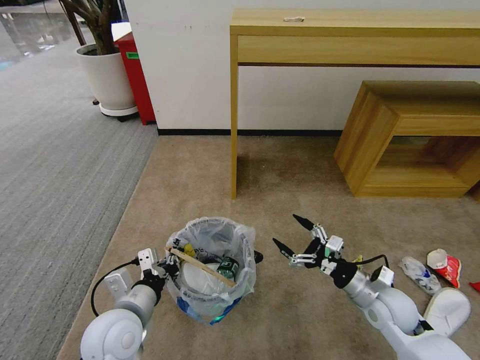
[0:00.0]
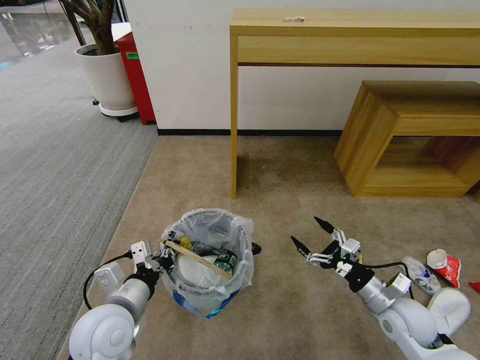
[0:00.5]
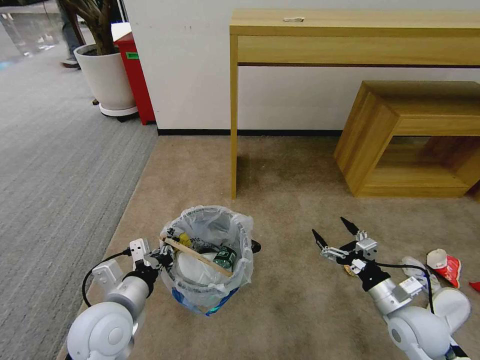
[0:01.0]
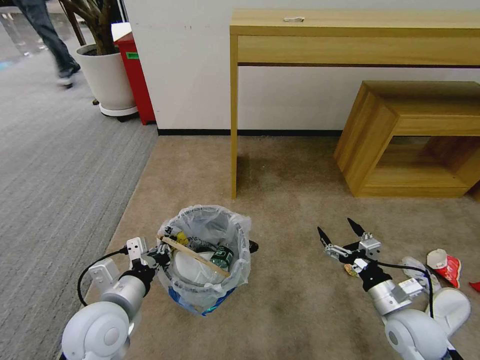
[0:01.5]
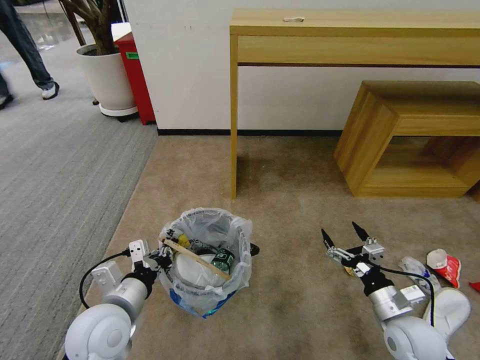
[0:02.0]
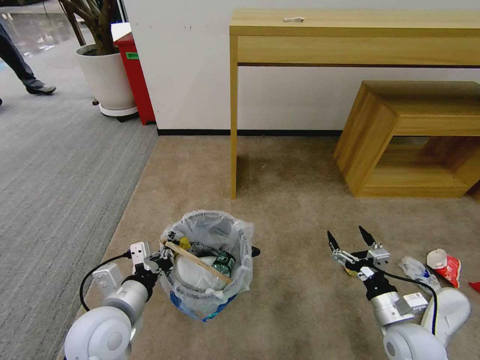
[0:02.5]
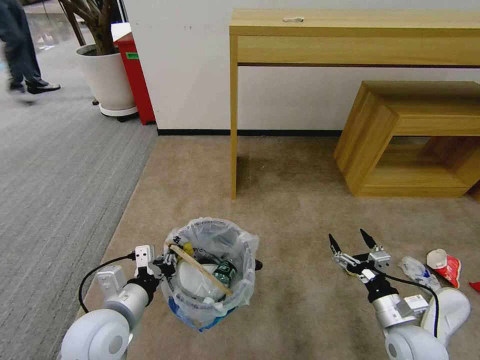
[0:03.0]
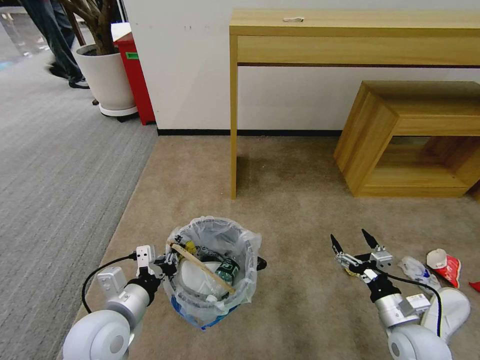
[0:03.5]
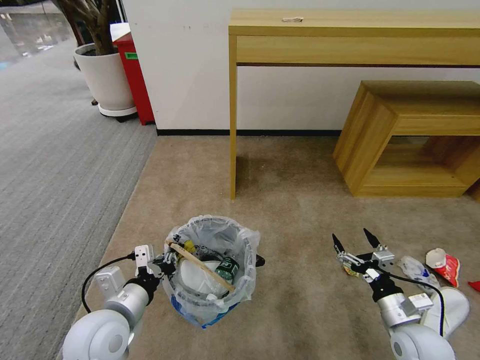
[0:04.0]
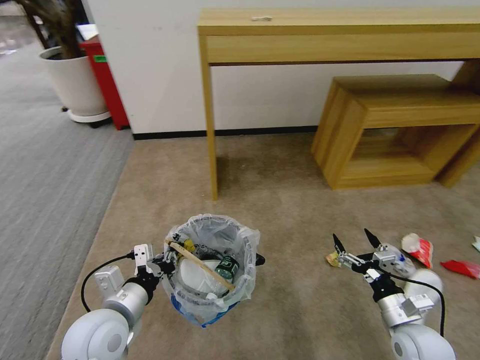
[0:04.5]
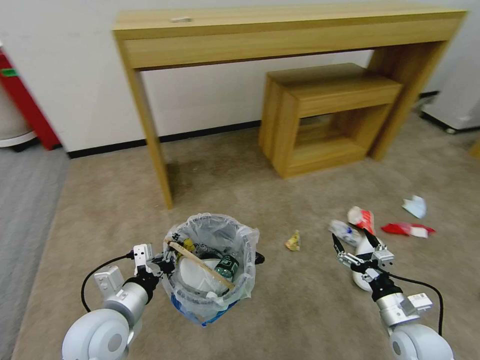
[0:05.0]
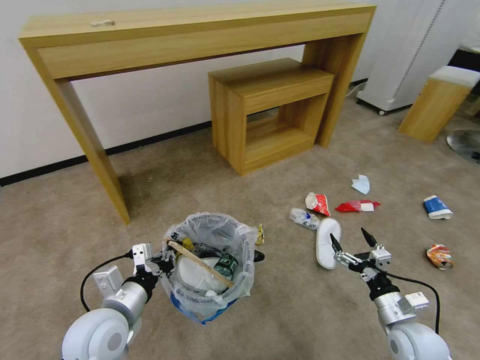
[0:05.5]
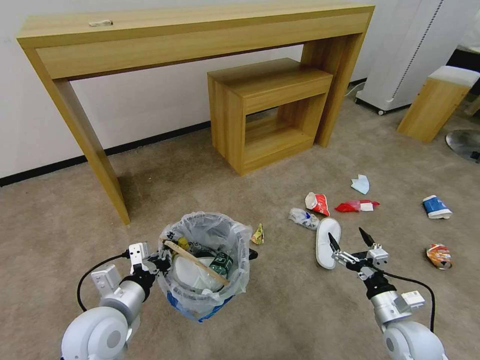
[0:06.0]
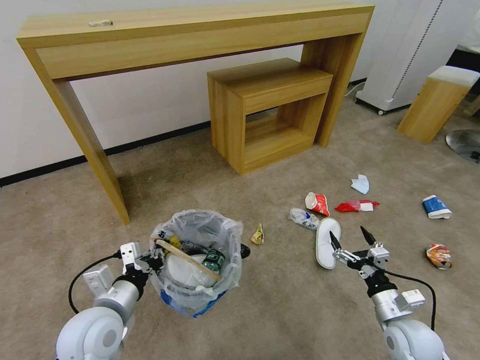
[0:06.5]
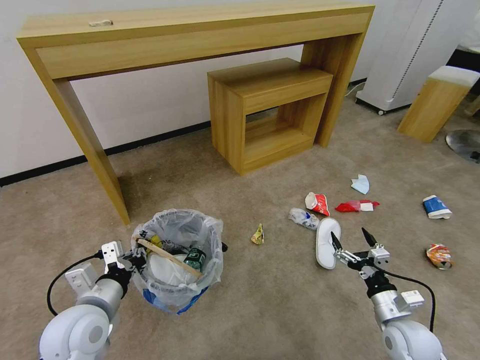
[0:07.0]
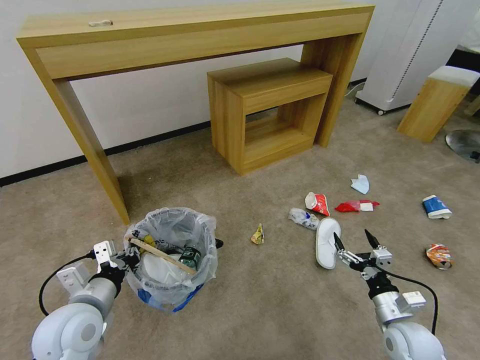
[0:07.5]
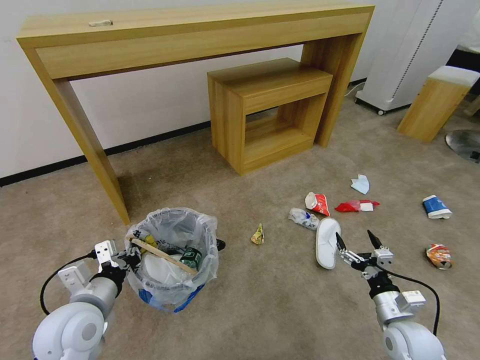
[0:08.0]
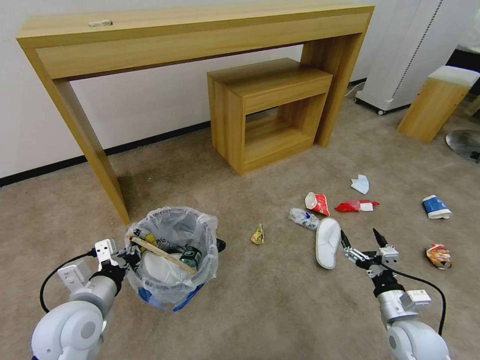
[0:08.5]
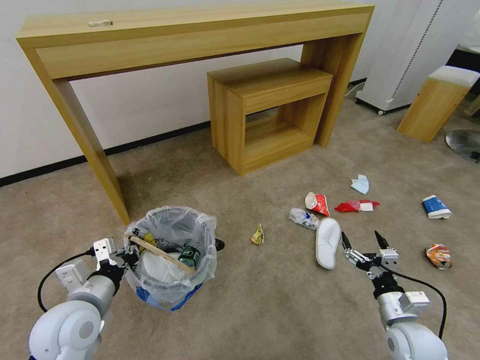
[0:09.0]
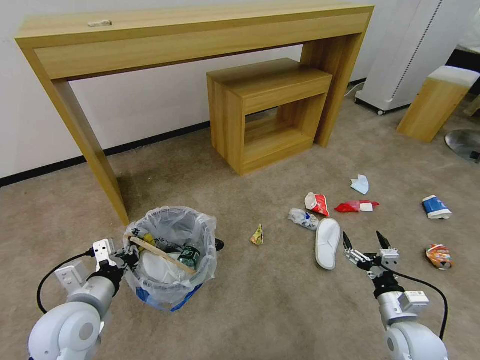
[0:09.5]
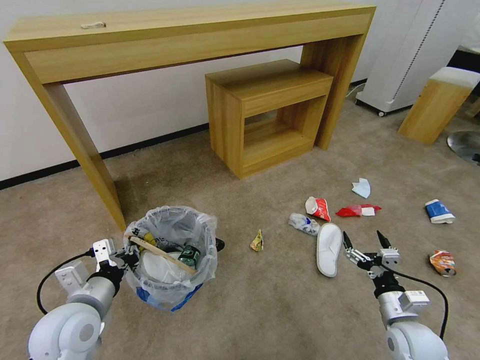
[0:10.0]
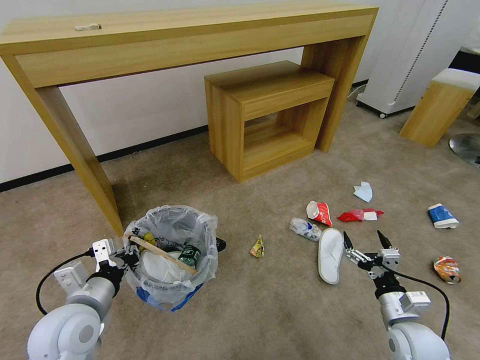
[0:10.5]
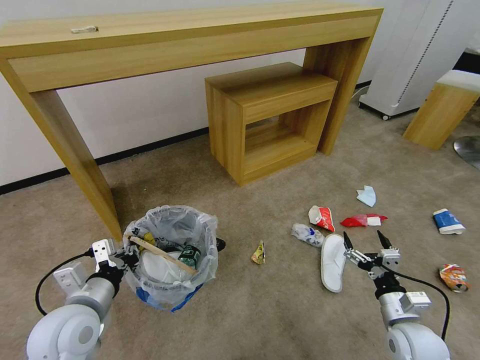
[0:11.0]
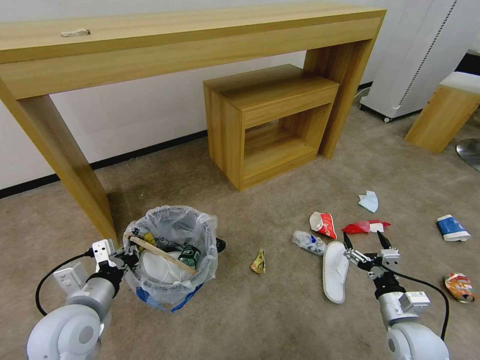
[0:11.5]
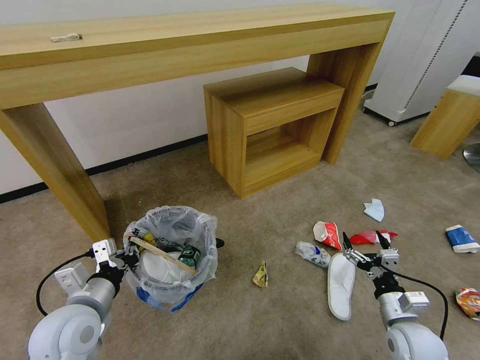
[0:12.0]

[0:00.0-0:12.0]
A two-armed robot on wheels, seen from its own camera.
Task of the whole recording: Pick up the trash bin and place the garbage on the floor into it.
0:00.0 to 0:02.0: The right gripper shifts some 5 cm backward.
0:02.0 to 0:04.0: There are only small adjustments of the grippers.
0:06.0 to 0:10.0: The grippers stay close to where they were, moving slightly.

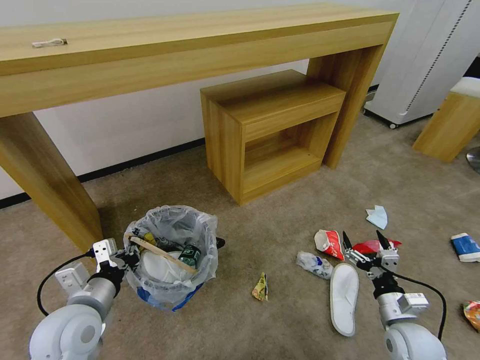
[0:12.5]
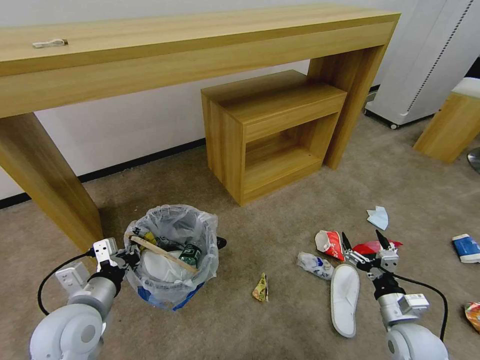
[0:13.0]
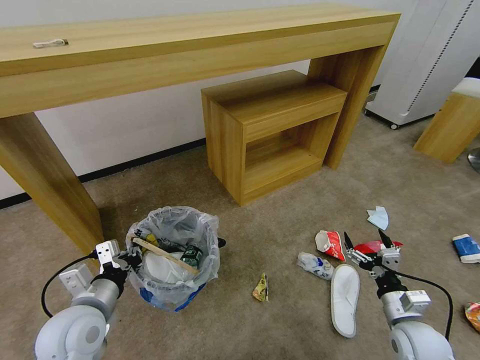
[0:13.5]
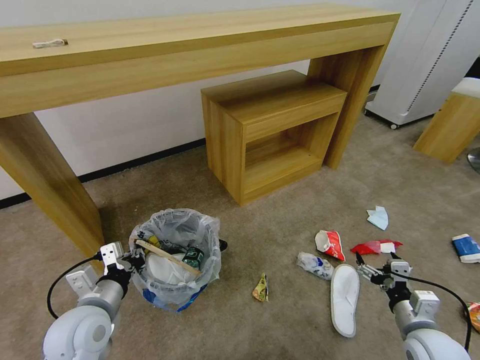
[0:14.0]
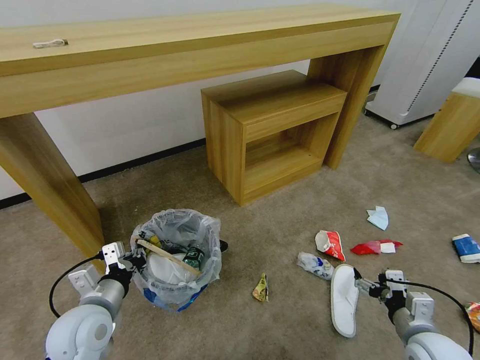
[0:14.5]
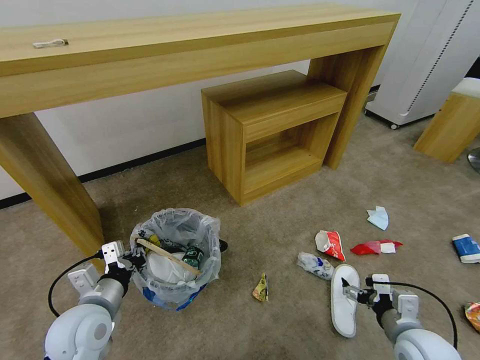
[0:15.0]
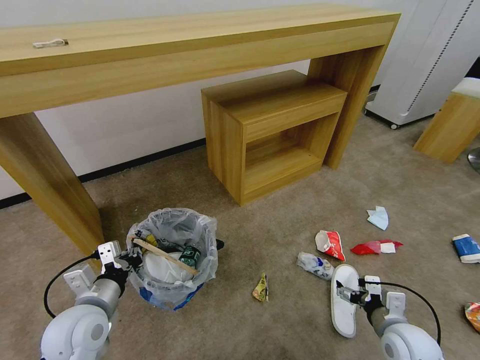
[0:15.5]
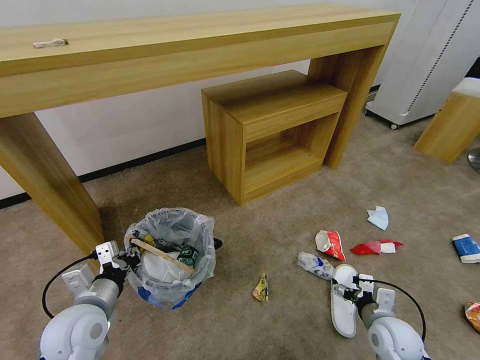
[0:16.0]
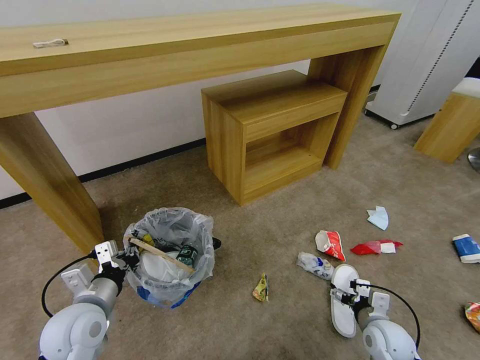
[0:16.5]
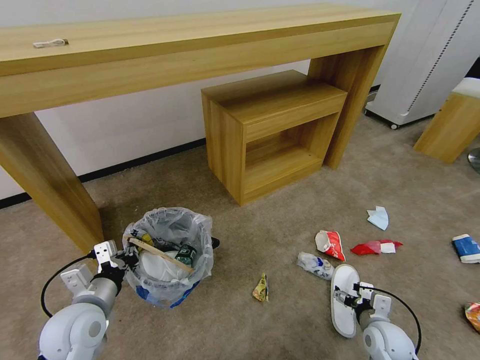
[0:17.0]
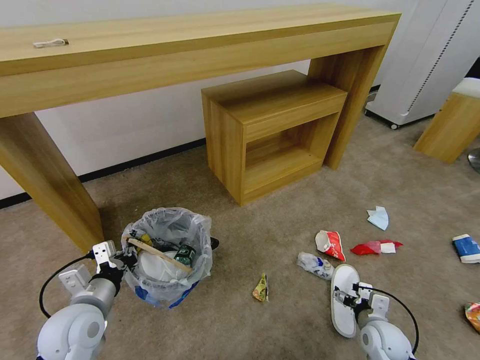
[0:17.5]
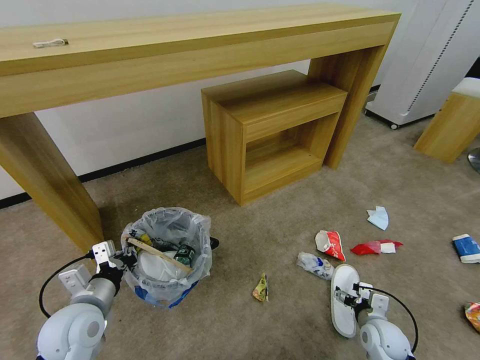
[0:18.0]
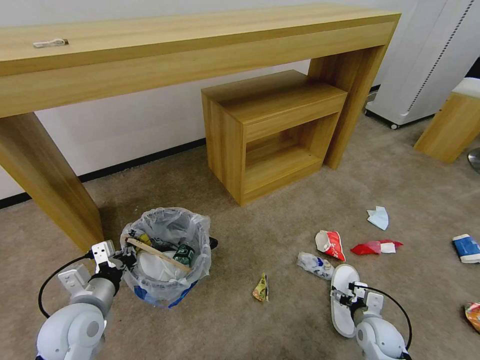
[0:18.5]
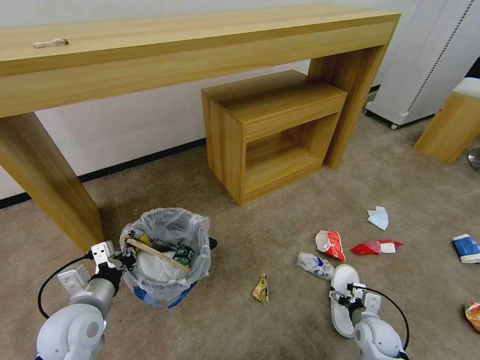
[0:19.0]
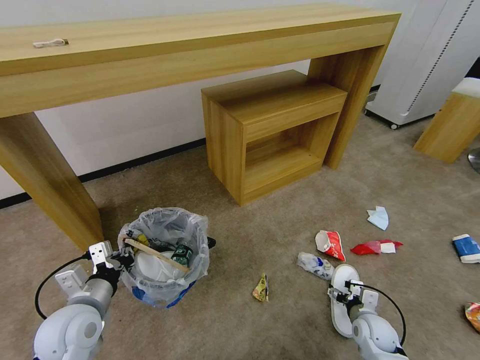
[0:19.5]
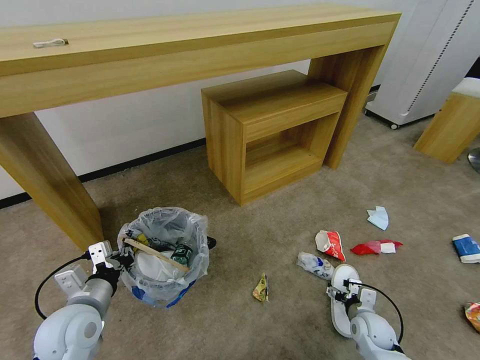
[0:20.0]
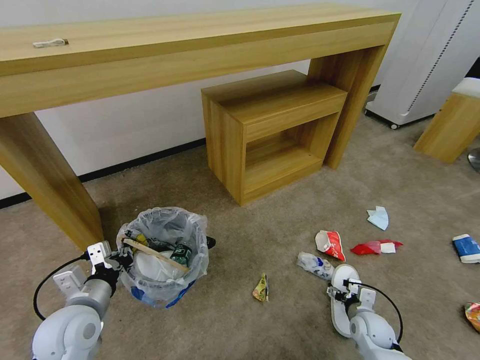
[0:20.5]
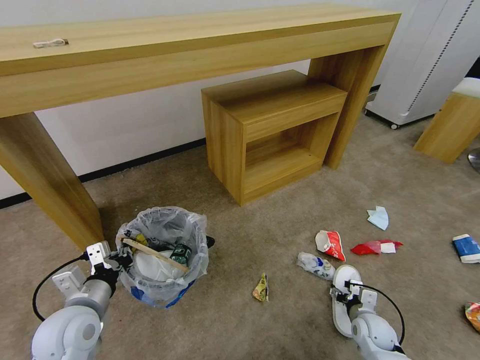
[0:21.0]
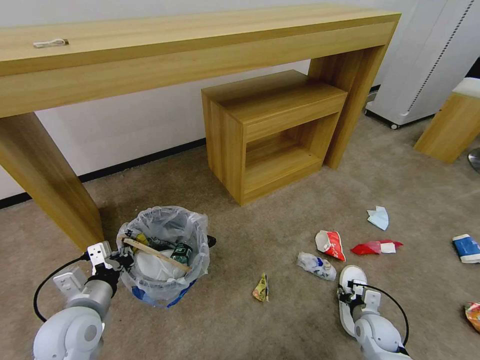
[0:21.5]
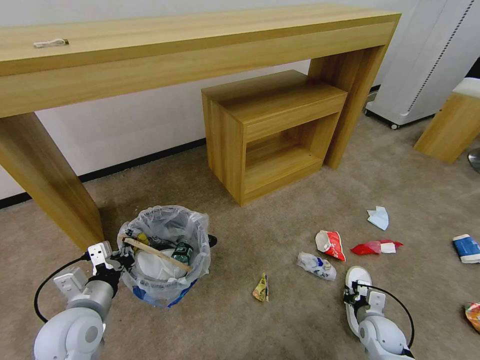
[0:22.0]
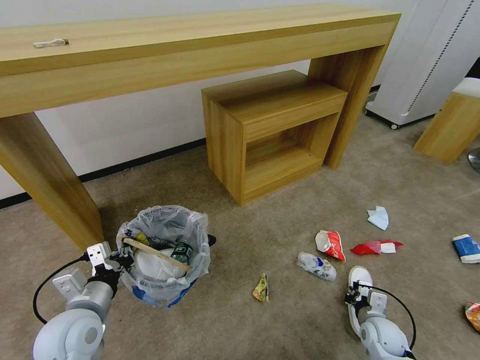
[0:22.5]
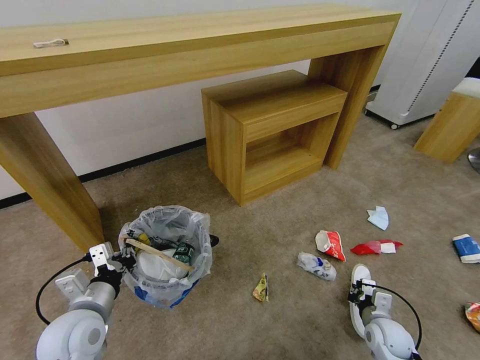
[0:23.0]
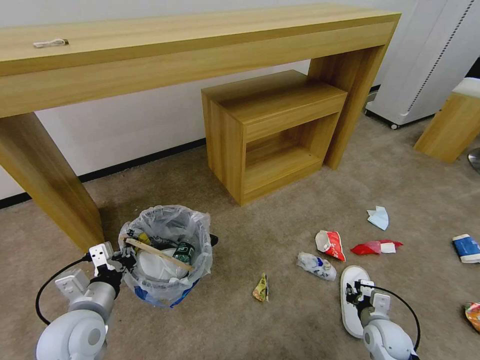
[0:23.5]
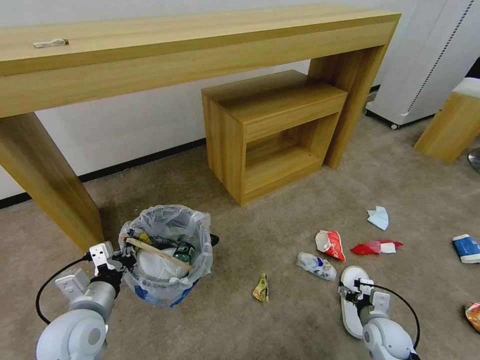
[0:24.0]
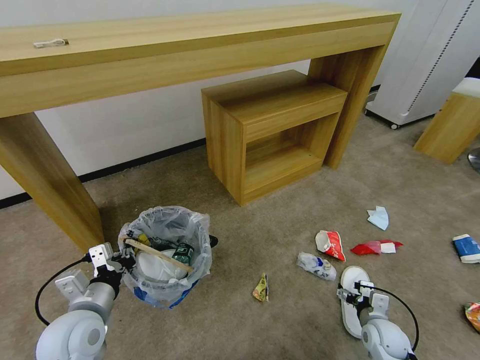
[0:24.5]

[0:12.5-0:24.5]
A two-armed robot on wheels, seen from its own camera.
Task of the whole recording: Pick up the trash bin and place the garbage on the floor into it.
0:12.5 to 0:14.5: The right gripper shifts by about 5 cm.
0:14.5 to 0:16.5: The right gripper travels downward by about 10 cm.
0:16.5 to 0:18.5: The grippers move only a little.
0:18.5 to 0:20.5: There are only small adjustments of the grippers.
0:20.5 to 0:22.5: The right gripper closes up.
0:22.5 to 0:24.5: The right gripper opens its fingers.

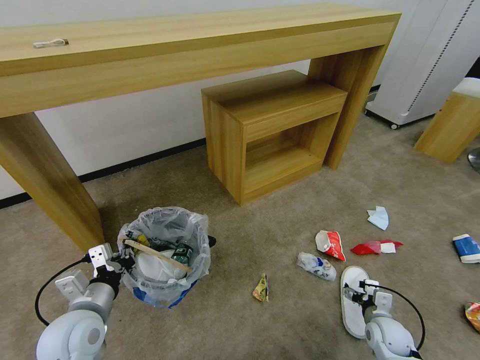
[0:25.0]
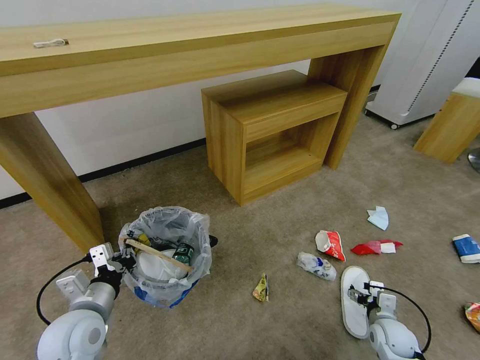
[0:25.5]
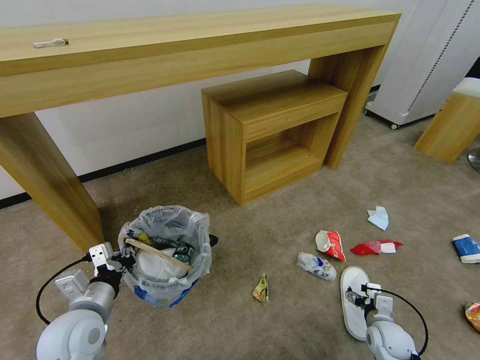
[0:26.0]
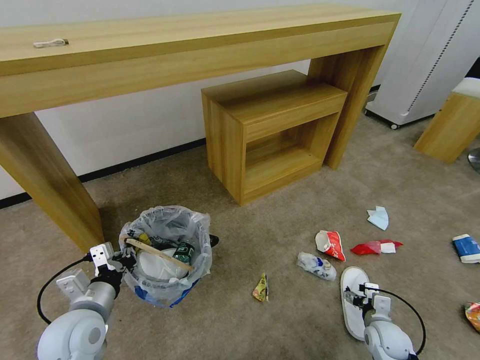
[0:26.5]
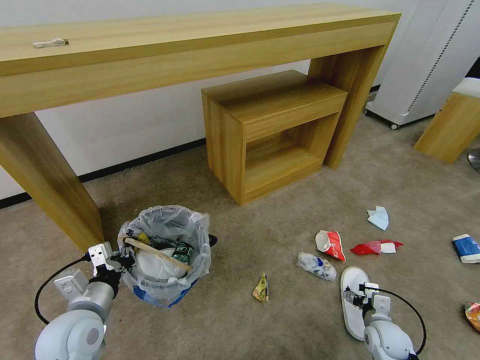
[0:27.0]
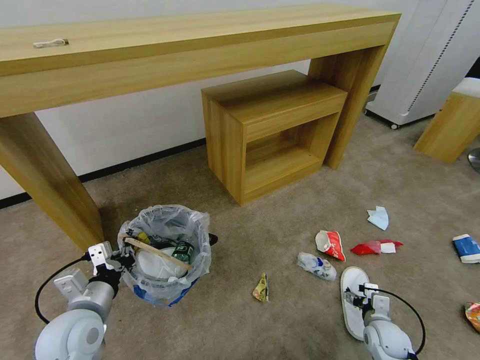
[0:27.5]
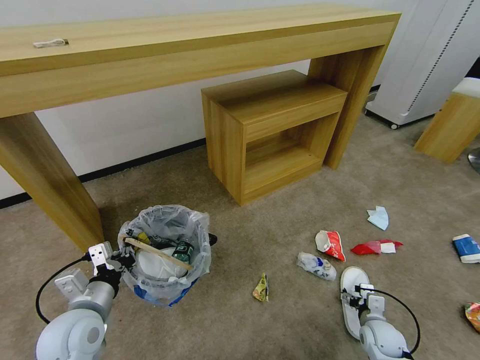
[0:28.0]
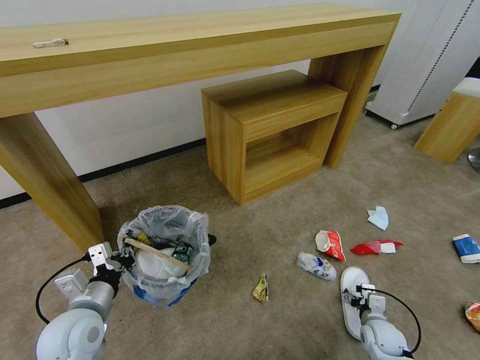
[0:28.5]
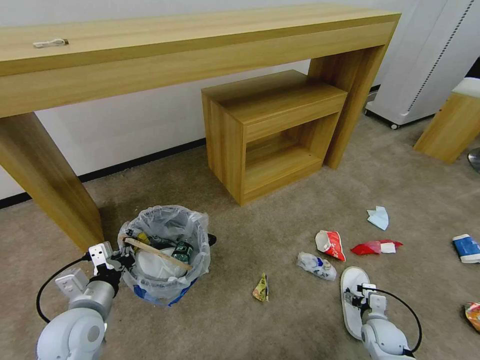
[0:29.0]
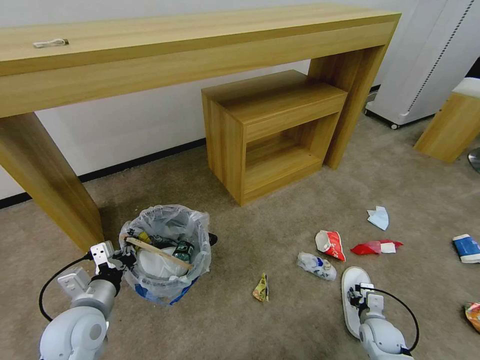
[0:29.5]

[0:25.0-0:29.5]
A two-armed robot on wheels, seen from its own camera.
Task of the whole recording: Pick up the trash bin and place the garbage on the floor into it.
0:25.0 to 0:27.0: Both grippers stay about where they are.
0:27.0 to 0:29.5: The right gripper closes up.
